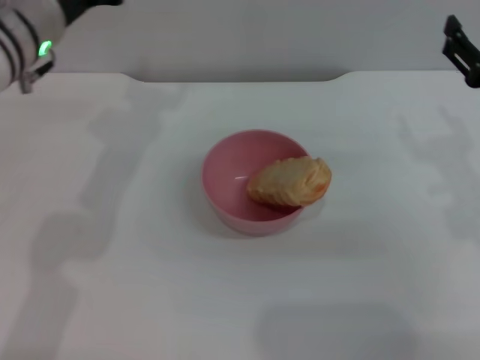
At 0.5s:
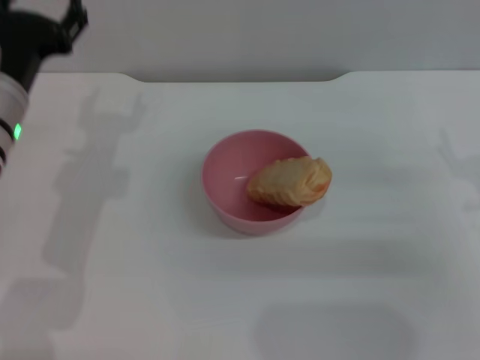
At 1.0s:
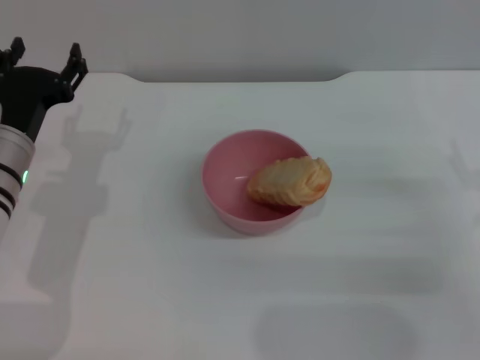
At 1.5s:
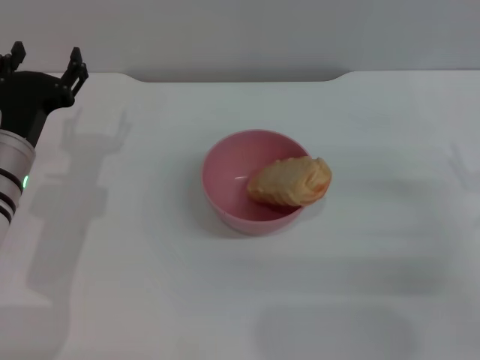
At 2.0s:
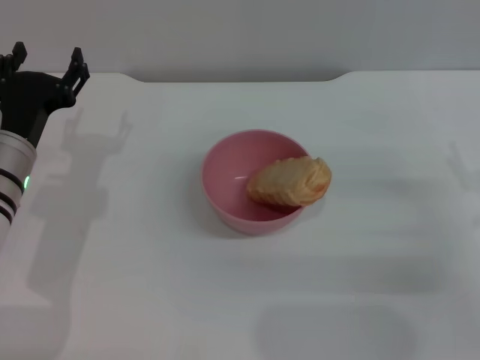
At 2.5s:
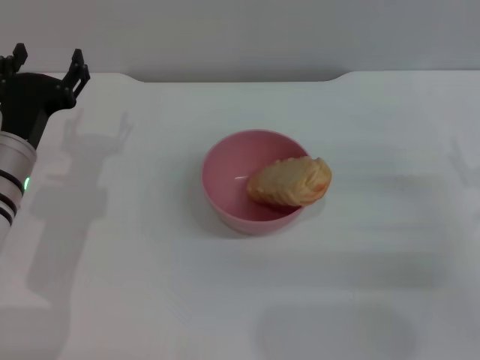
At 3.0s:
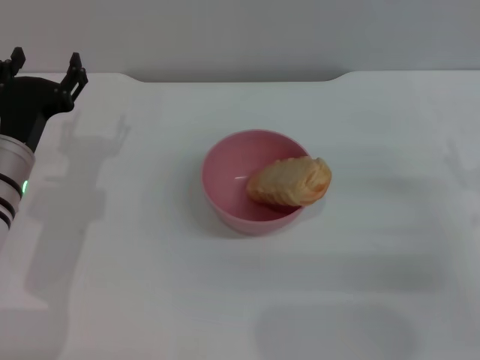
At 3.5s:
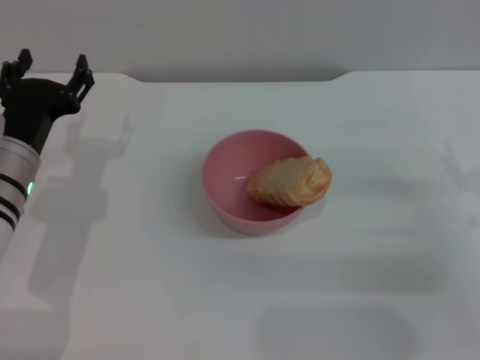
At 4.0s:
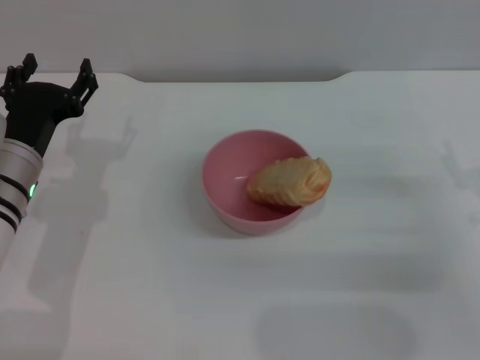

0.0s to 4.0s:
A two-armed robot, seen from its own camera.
Task of the whole recording: put the bread into the pink bowl and pour it out repeatedly.
0.0s to 2.0s: The right gripper goes some 5 cm downward, while the left gripper moves downward and backward, approximately 15 cm.
2.0s to 4.0s: The two grippers keep their place.
